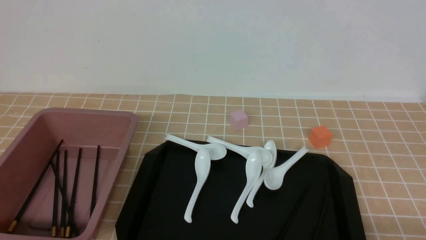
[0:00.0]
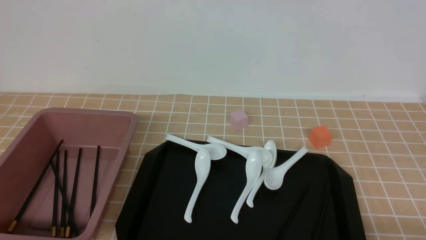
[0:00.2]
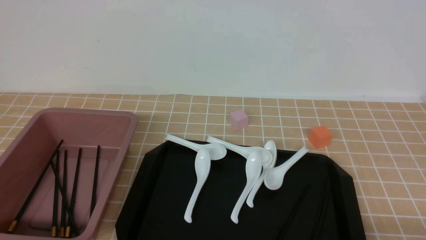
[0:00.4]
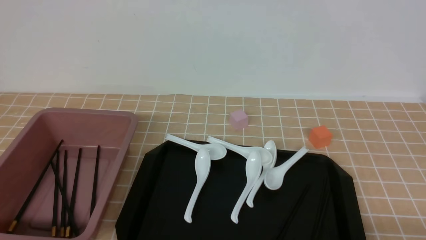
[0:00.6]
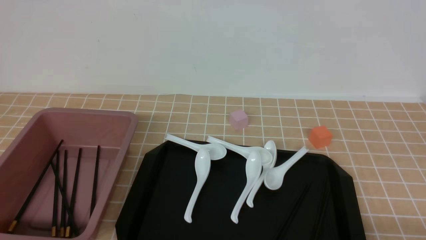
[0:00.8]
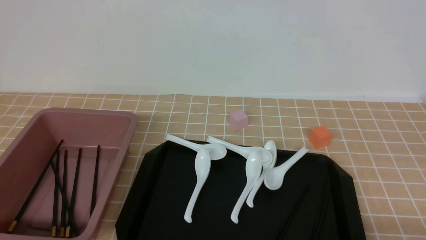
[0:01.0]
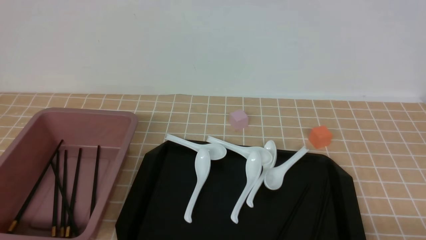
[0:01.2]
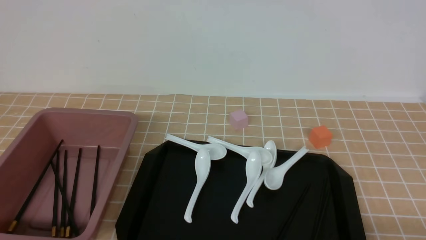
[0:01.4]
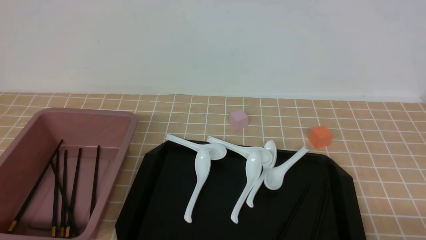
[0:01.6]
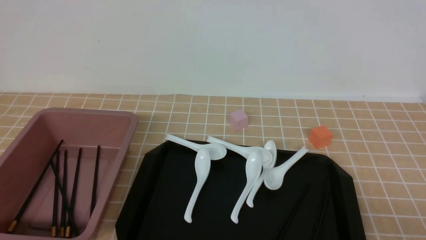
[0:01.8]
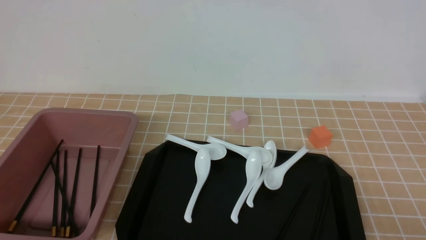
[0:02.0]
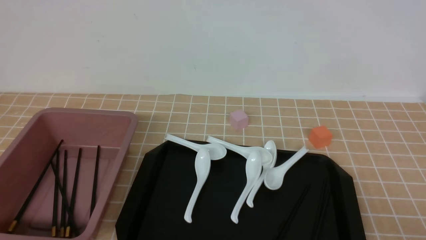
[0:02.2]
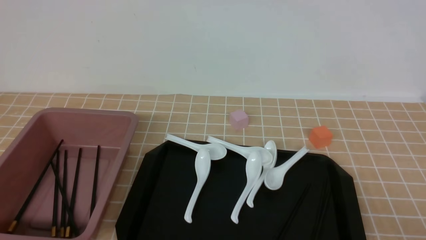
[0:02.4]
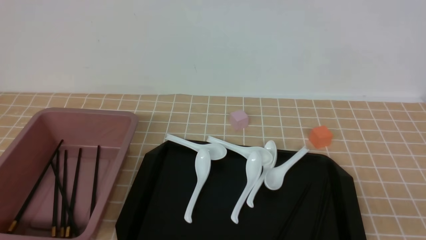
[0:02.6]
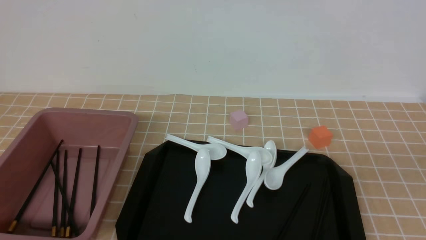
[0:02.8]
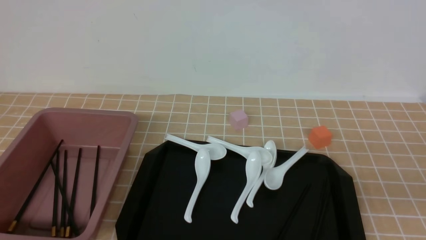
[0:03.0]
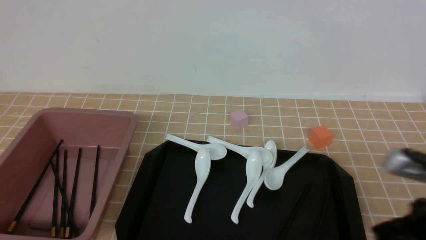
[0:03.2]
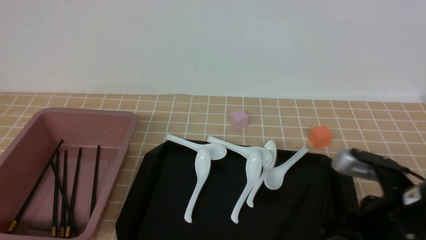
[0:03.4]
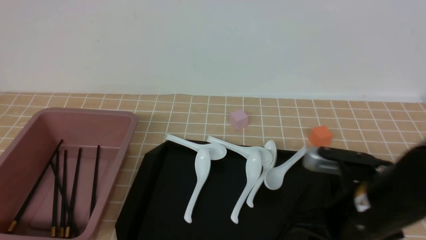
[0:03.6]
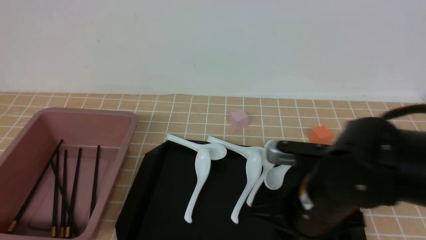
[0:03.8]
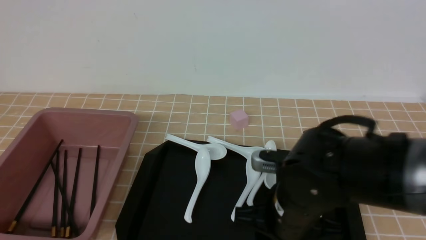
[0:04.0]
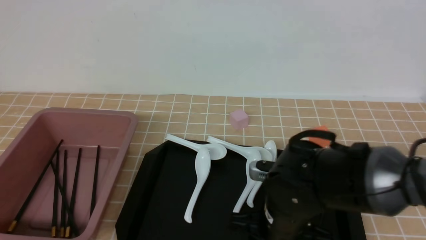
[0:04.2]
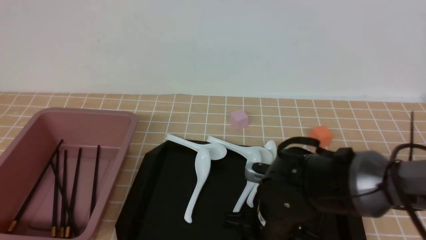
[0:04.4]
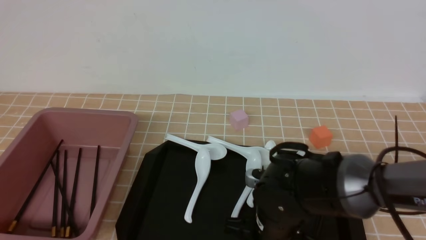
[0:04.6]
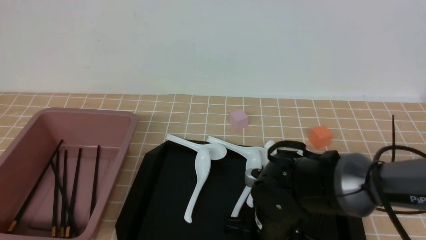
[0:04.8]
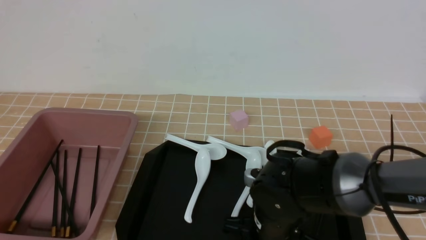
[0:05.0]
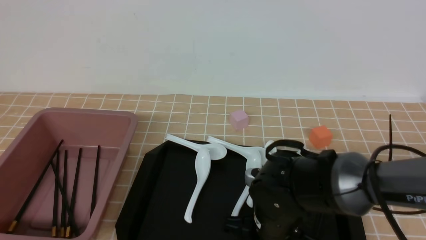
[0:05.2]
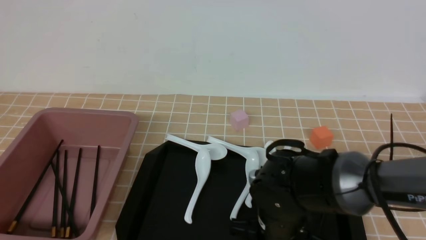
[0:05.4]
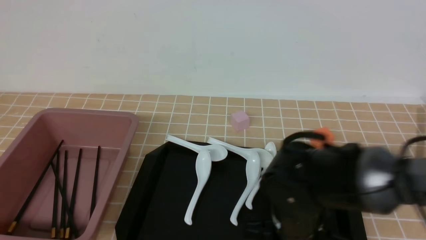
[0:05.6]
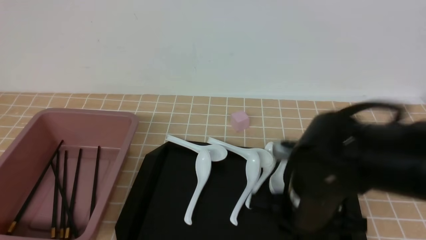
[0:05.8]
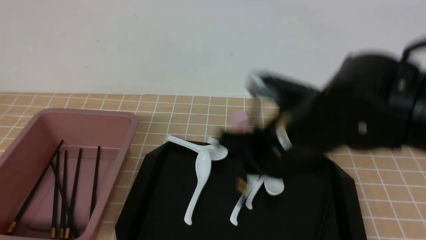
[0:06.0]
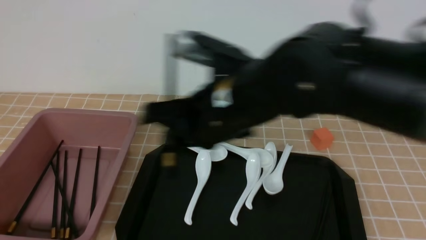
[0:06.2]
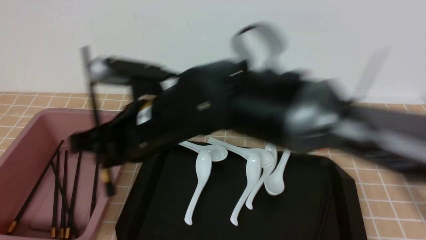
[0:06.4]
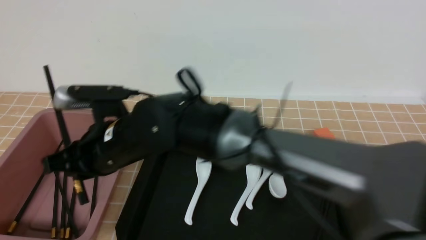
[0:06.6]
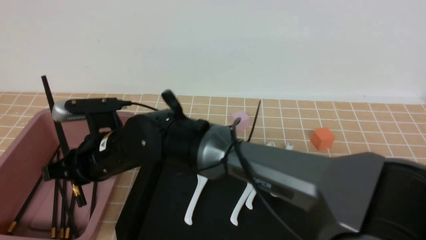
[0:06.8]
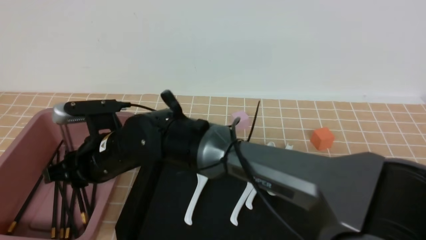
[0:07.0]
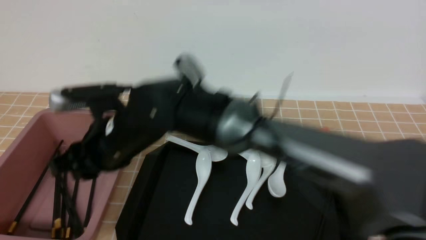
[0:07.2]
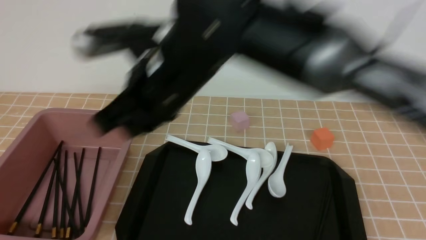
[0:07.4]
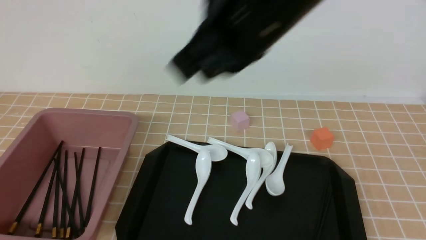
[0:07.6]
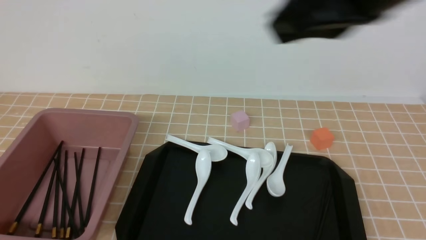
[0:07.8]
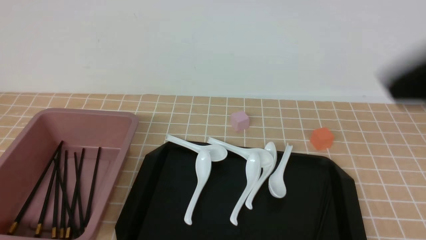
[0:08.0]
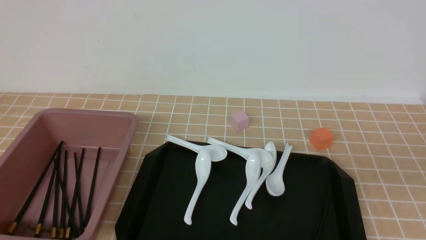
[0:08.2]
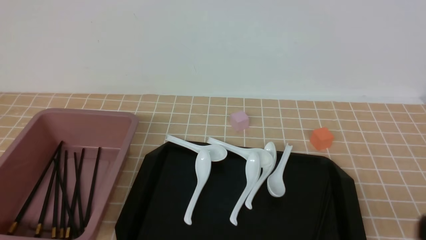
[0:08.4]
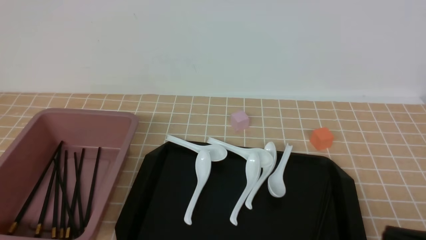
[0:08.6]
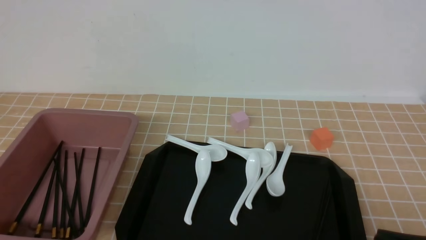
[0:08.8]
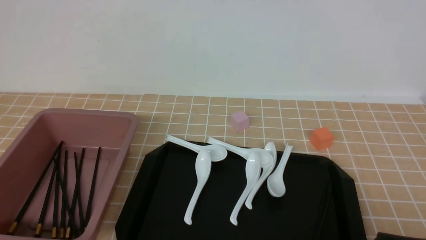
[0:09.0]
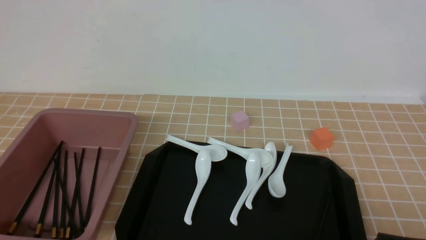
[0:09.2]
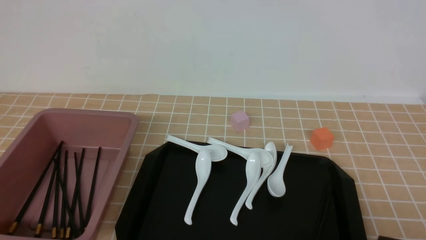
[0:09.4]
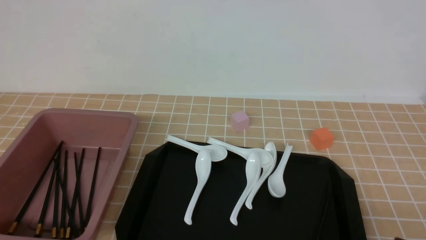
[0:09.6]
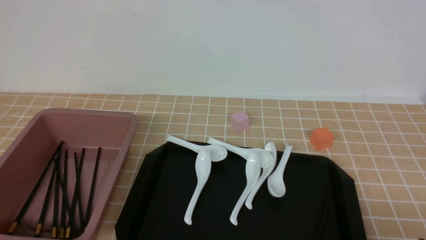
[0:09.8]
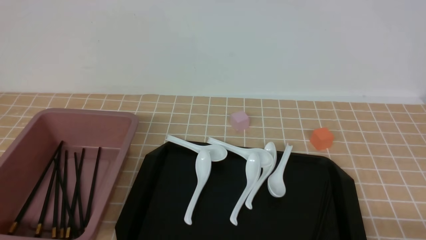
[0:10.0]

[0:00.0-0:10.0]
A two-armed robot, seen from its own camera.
Step, 0:00.0 to 0:05.6: use the right arm to grab a pair of chopsticks.
Step, 0:06.0 to 0:07.2: use the right arm to put the chopsticks into the lunch box.
0:00.0 to 0:01.4: Both grippers stay about where they are.
0:02.8 to 0:04.2: The right gripper is displaced to the left, forward and downward by about 30 cm, and opens its fingers.
0:04.2 to 0:05.8: The right gripper shifts about 5 cm upward, and closes.
0:05.8 to 0:07.2: The right gripper moves to the left, some 20 cm.
0:07.2 to 0:08.6: The right gripper travels to the right and backward by about 40 cm, and closes its fingers.

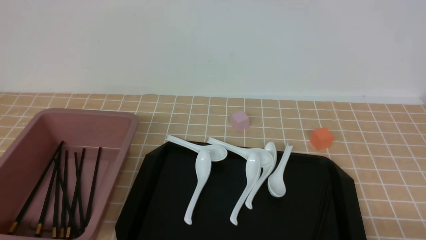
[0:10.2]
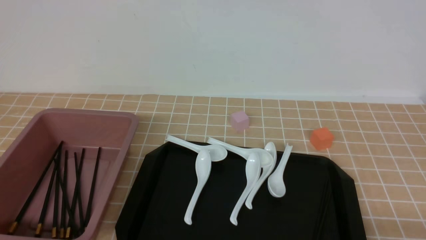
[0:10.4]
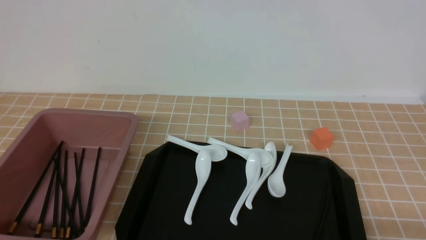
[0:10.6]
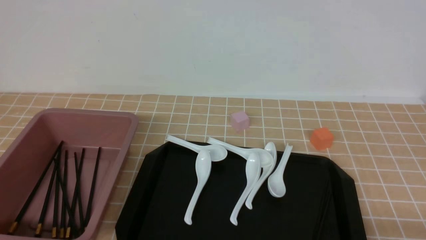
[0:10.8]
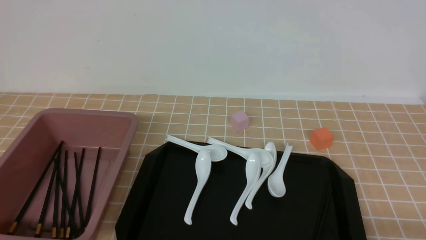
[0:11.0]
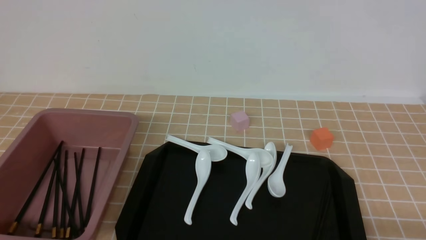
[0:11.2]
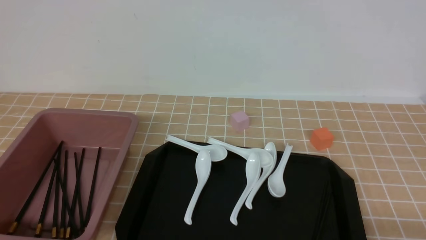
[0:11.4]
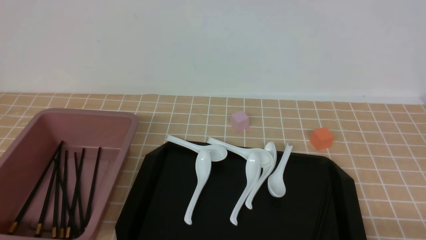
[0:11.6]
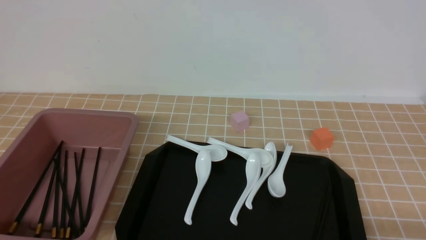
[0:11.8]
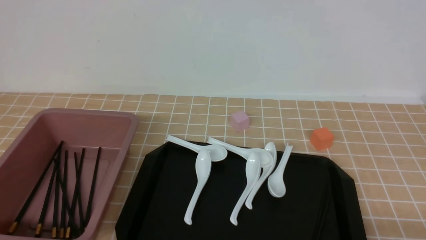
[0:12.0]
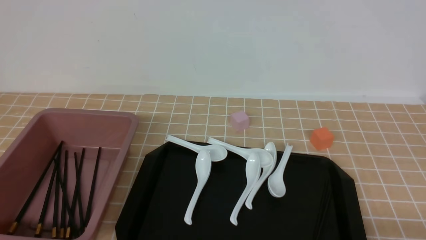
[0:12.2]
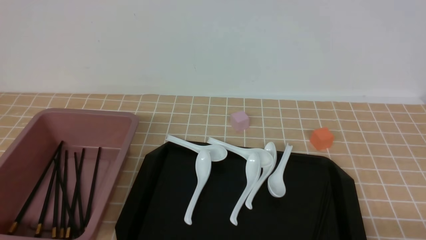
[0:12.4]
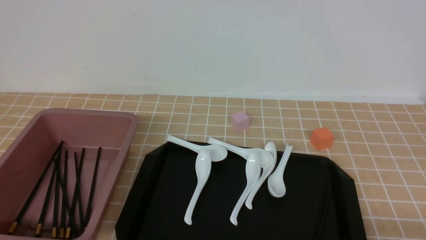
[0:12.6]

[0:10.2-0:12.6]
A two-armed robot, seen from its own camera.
0:10.2 to 0:12.6: Both grippers stay about where they are.
